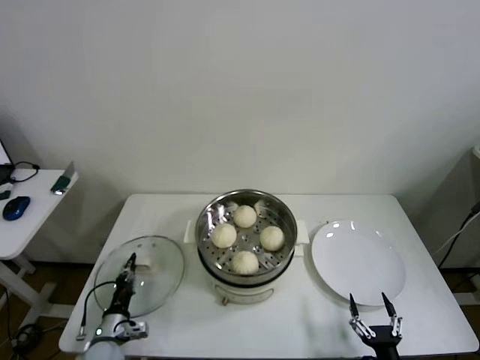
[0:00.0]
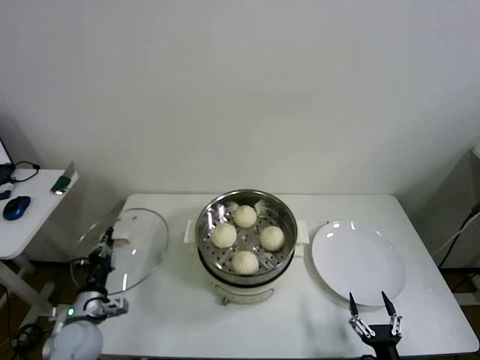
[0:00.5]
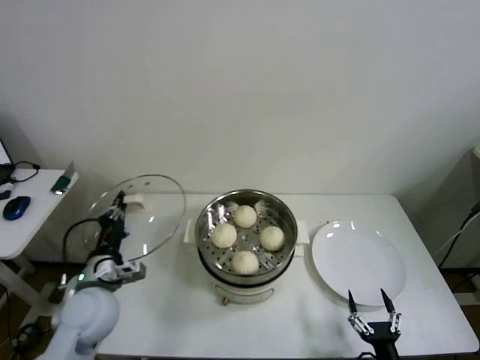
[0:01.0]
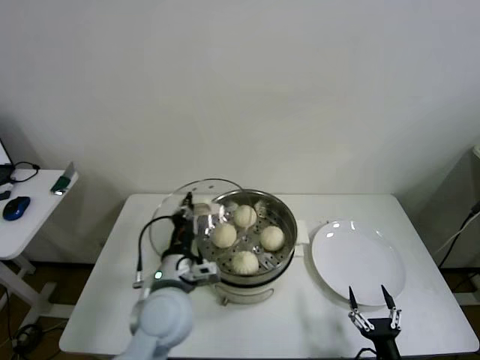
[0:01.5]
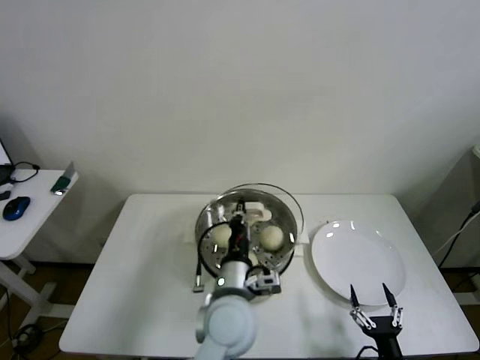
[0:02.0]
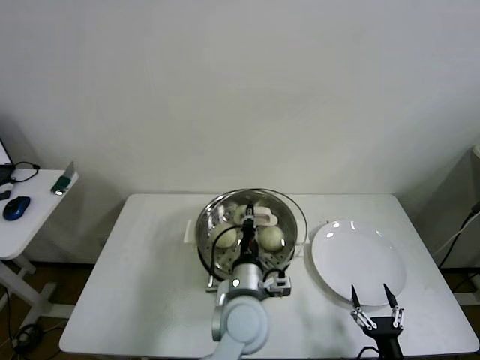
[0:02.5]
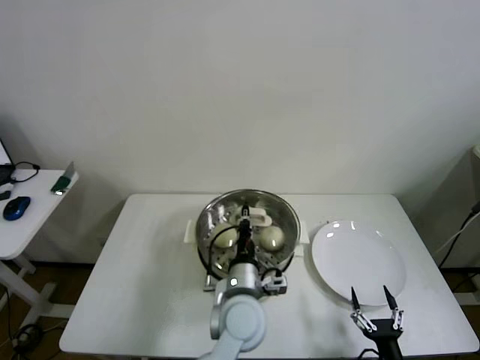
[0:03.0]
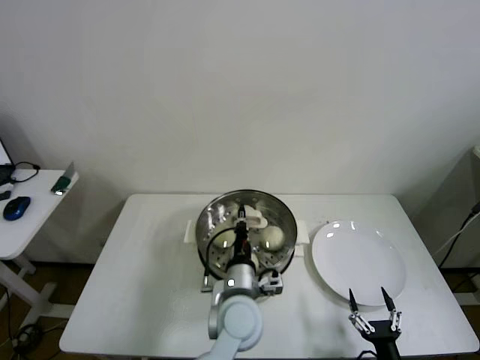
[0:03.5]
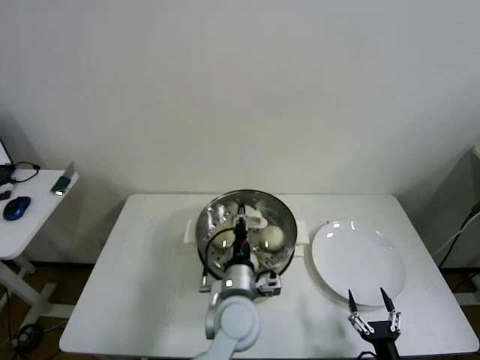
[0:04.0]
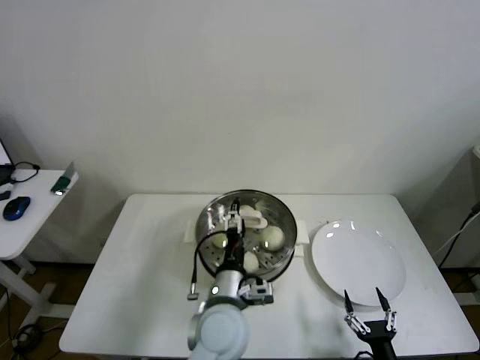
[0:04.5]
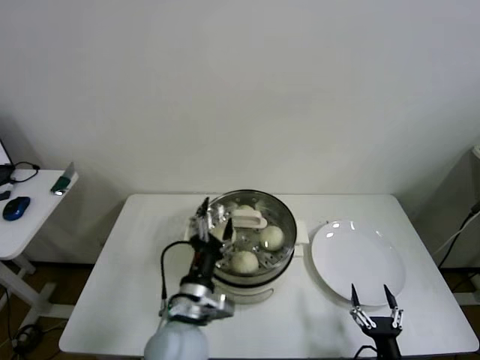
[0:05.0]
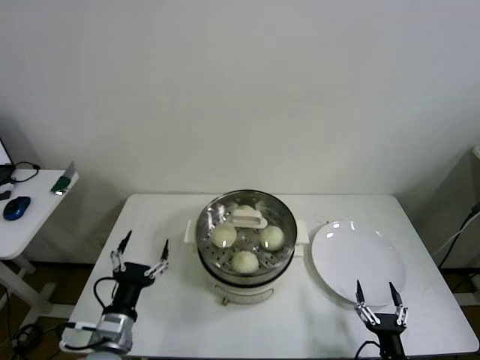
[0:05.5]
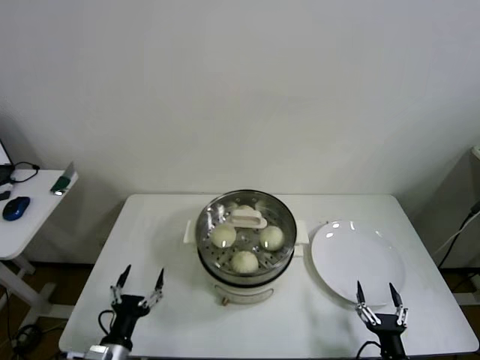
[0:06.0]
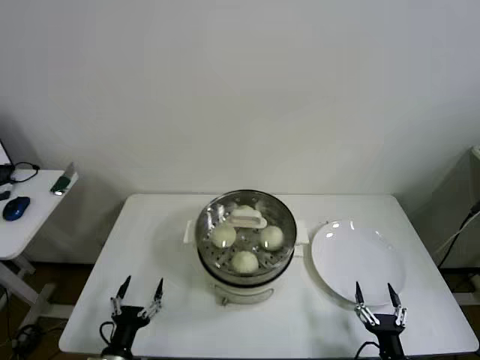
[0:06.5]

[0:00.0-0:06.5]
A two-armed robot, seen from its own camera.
Step, 0:00.0 to 0:04.0: Place the pot lid on the steamer with left gripper.
0:00.0 to 0:02.0: The left gripper travels to the right and upward by some 40 cm.
0:02.0 to 0:04.5: The left gripper opens.
0:04.5 to 0:06.5: The left gripper shifts some 30 cm to the left, downward and backward.

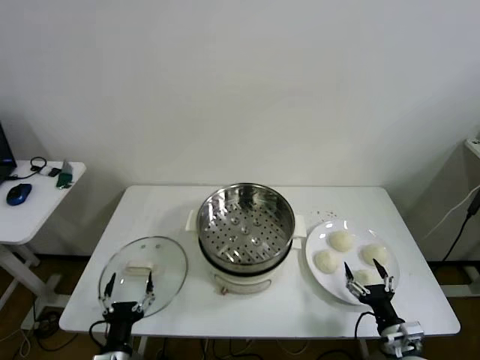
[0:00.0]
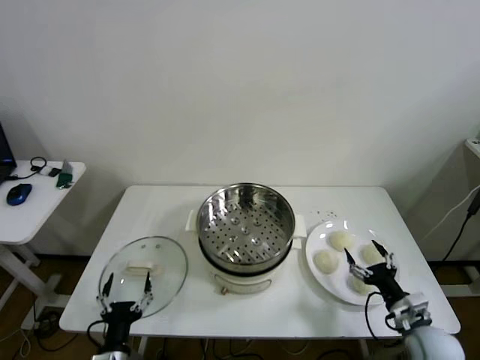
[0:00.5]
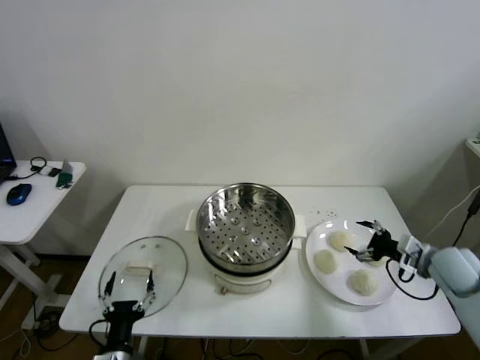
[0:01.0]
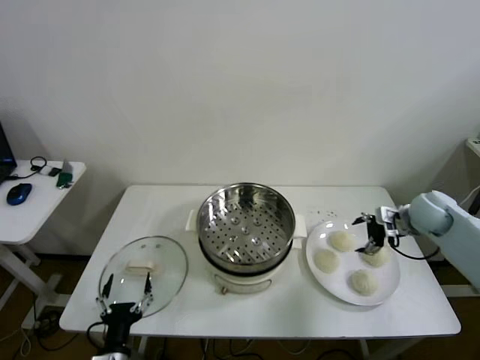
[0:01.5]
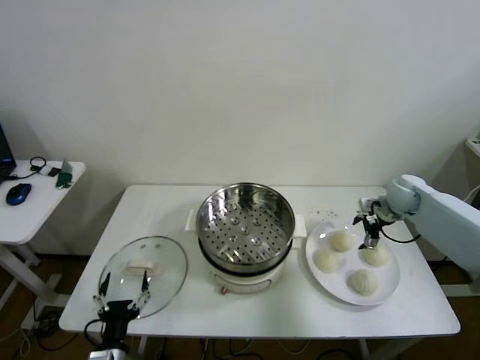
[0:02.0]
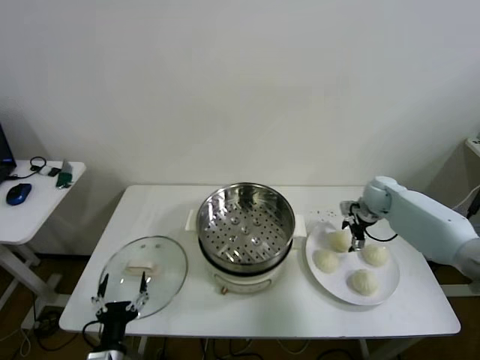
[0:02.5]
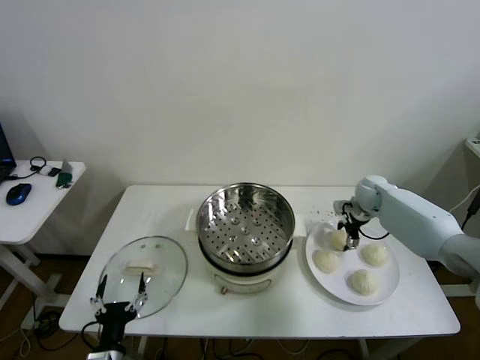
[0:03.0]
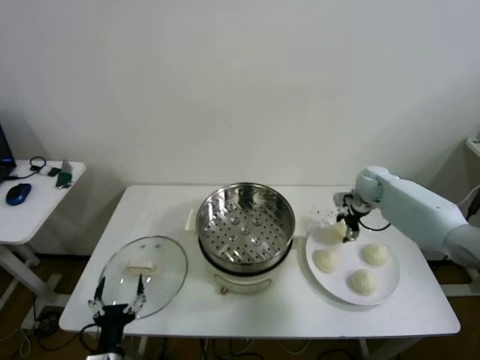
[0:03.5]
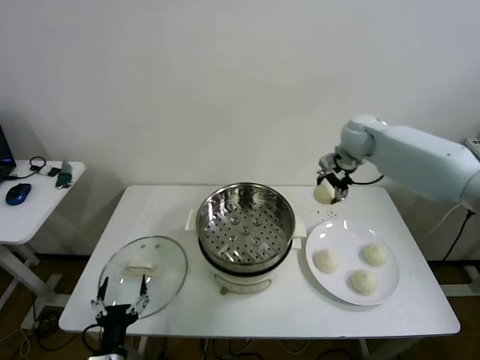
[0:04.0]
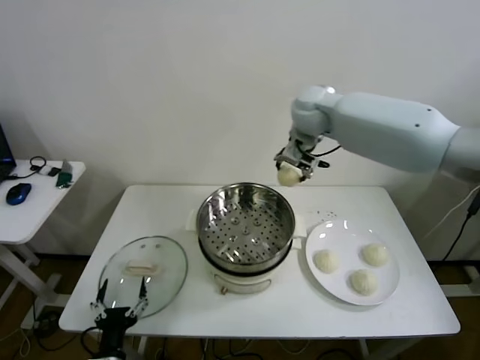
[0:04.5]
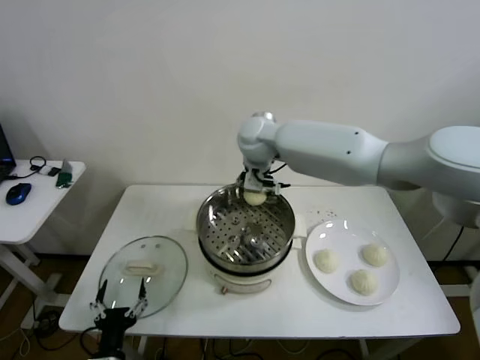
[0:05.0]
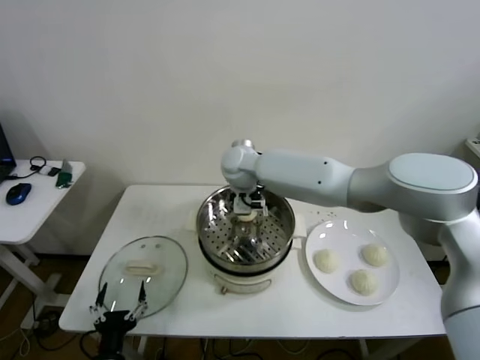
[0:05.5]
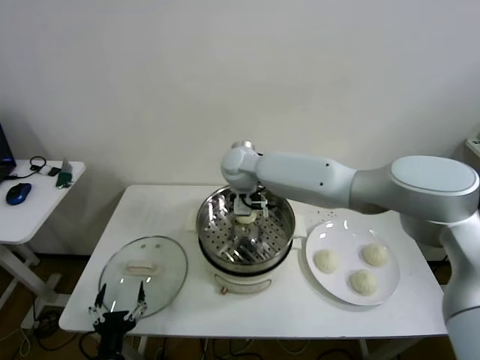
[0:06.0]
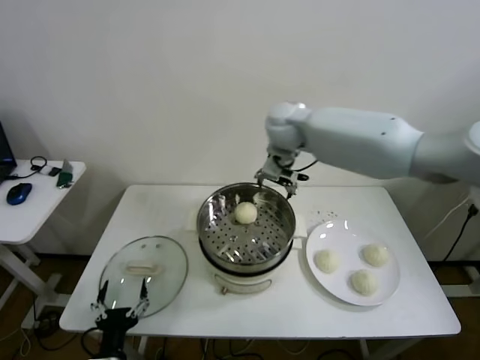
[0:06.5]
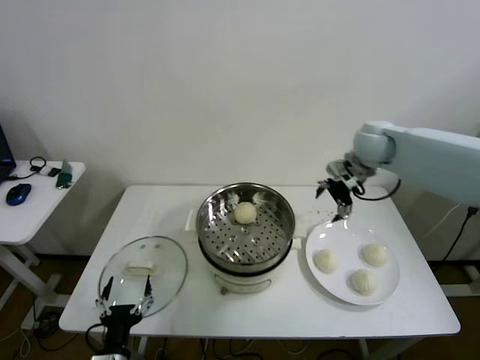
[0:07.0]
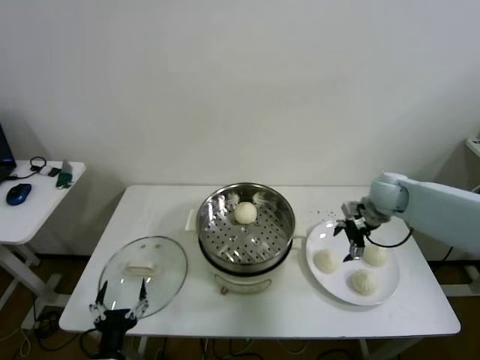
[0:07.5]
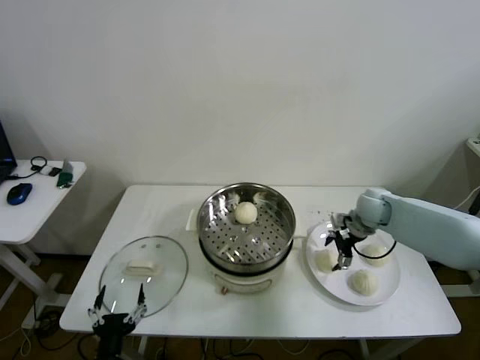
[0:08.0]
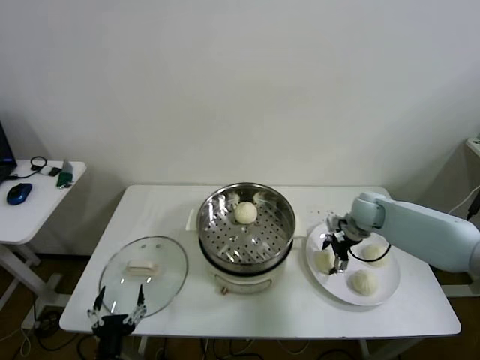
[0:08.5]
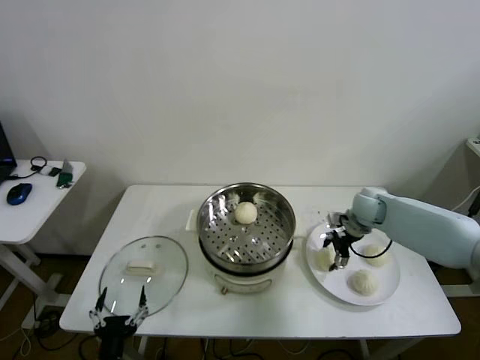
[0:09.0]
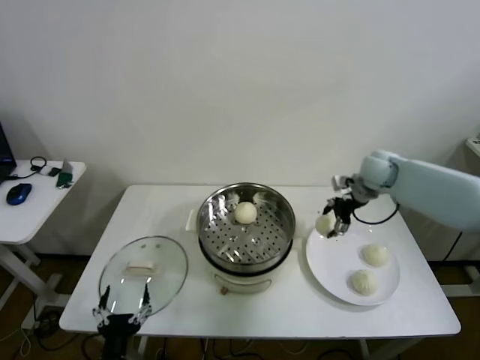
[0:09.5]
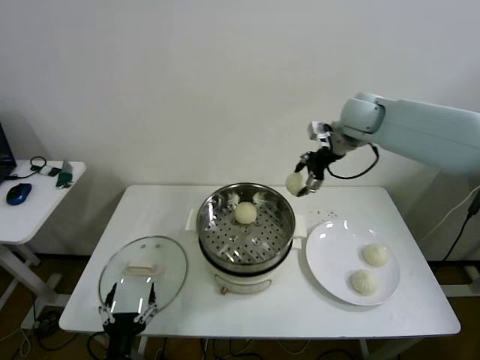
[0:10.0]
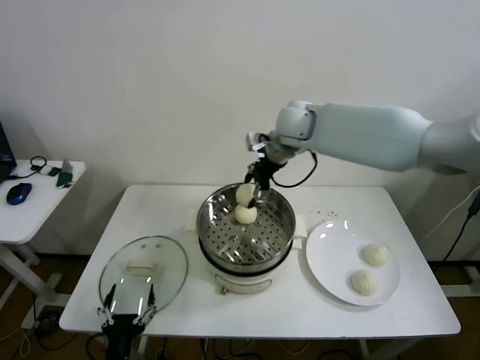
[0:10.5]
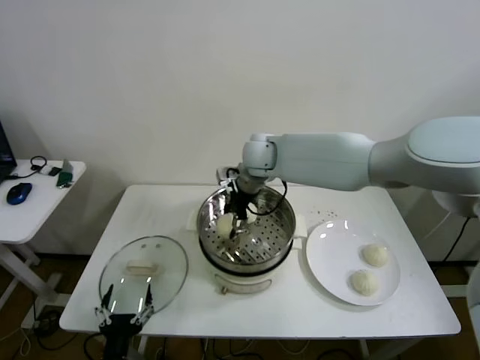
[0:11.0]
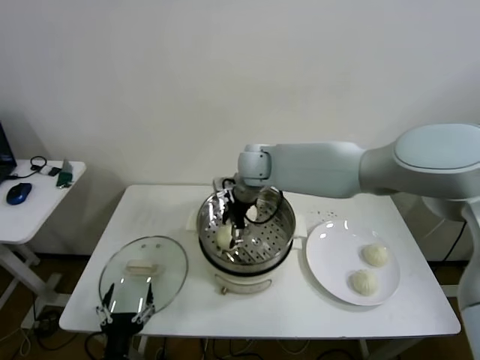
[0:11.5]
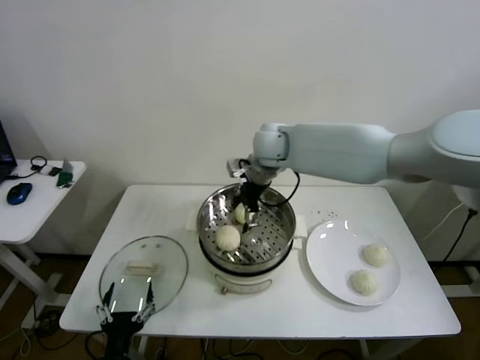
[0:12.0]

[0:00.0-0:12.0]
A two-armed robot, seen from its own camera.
Step, 0:00.0 to 0:02.5: Grasp the baozi in the plate with right gripper.
Step, 0:03.5 to 0:05.5: Place the baozi on the steamer with right gripper.
Step, 0:06.0 to 0:08.5: Grasp the baozi in the plate with right gripper.
Step, 0:09.0 to 0:11.0: Place the baozi on the steamer with right gripper.
0:02.0 to 0:04.0: The right gripper goes some 25 cm upward and to the left.
0:04.0 to 0:06.0: The right gripper travels to the left by about 25 cm.
0:06.0 to 0:08.0: The right gripper heads to the right and downward, covering some 35 cm.
0:08.0 to 0:10.0: The right gripper moves upward and to the left, roughly 25 cm.
0:10.0 to 0:12.0: The right gripper is displaced to the left by some 15 cm.

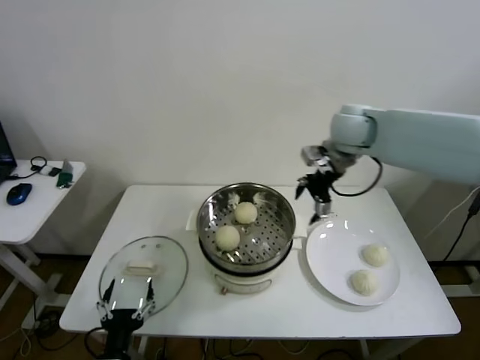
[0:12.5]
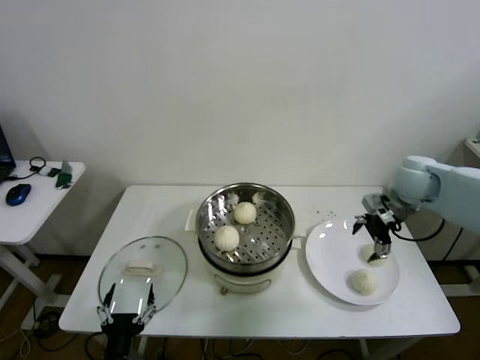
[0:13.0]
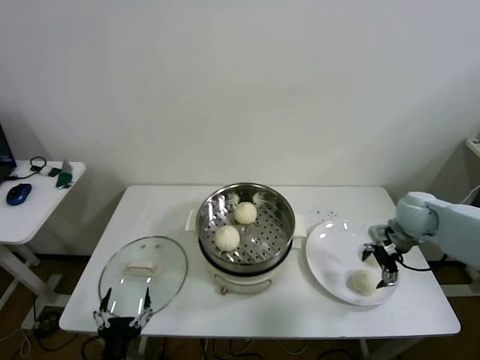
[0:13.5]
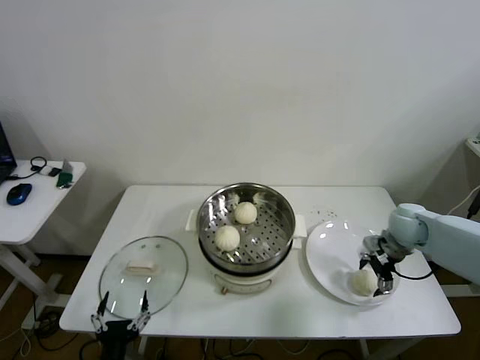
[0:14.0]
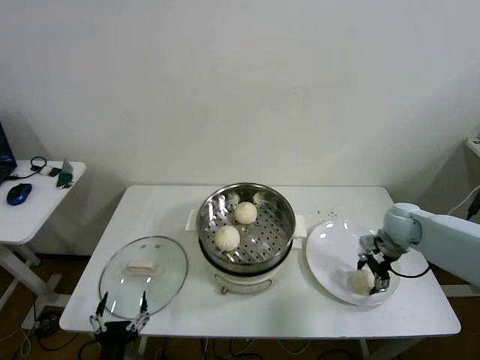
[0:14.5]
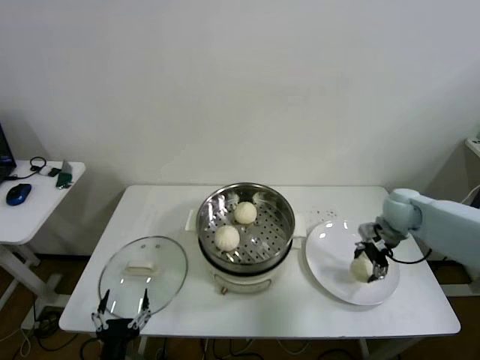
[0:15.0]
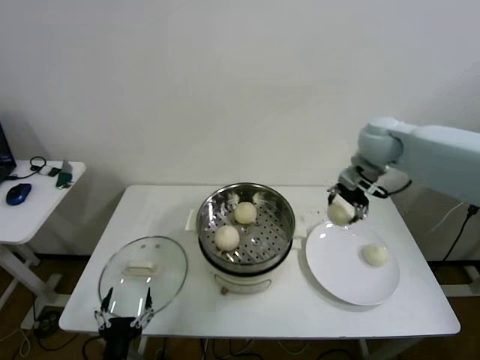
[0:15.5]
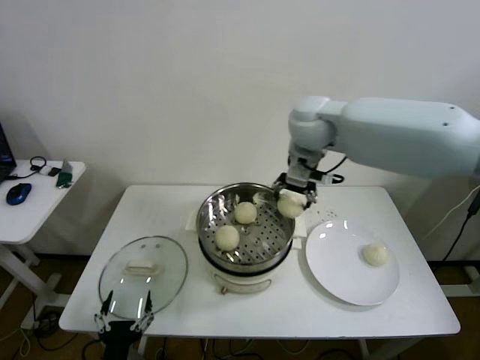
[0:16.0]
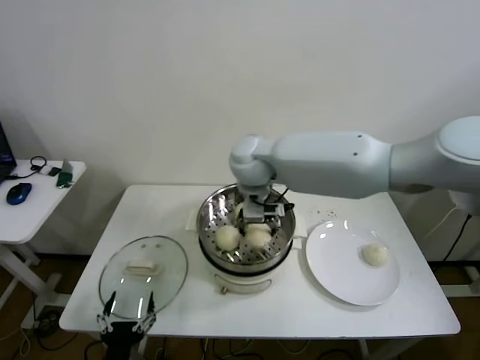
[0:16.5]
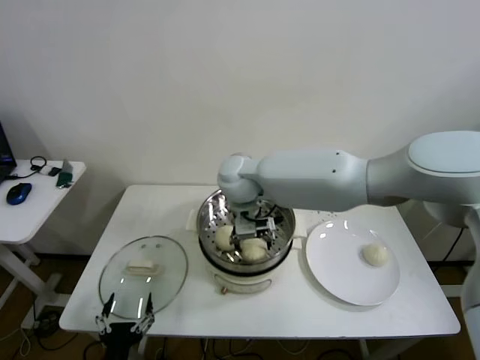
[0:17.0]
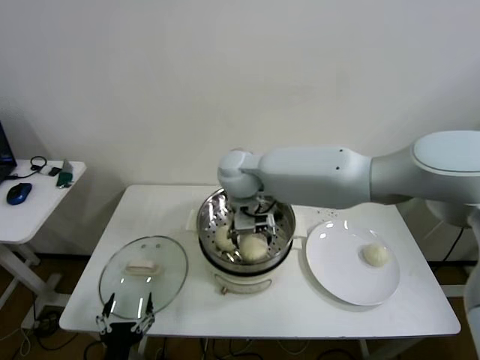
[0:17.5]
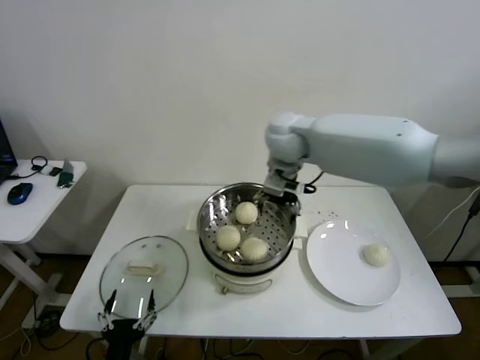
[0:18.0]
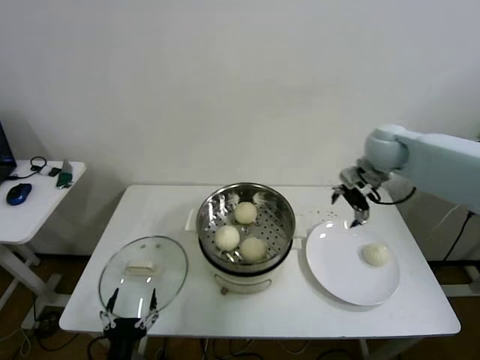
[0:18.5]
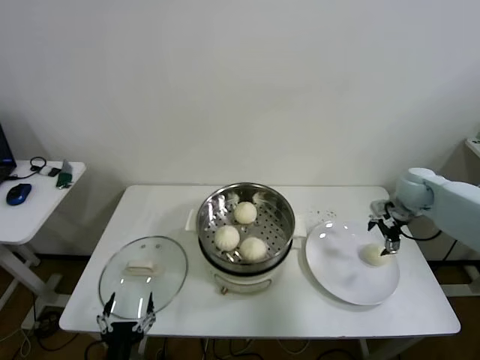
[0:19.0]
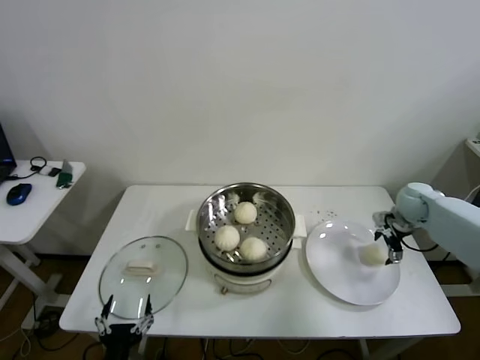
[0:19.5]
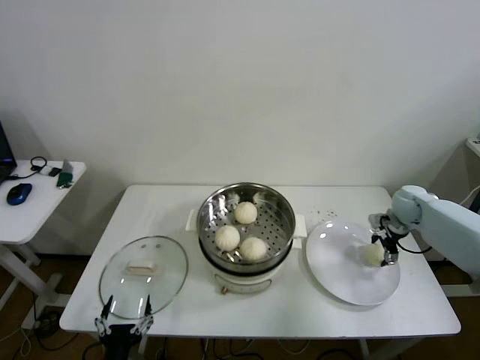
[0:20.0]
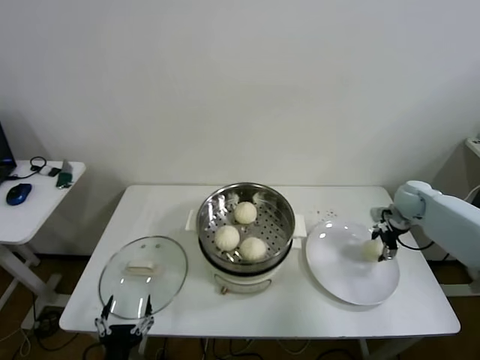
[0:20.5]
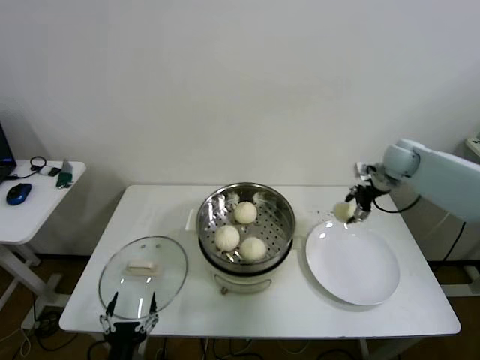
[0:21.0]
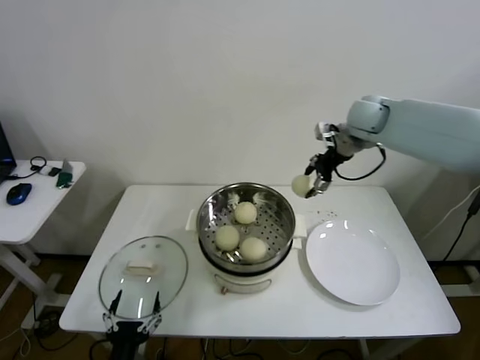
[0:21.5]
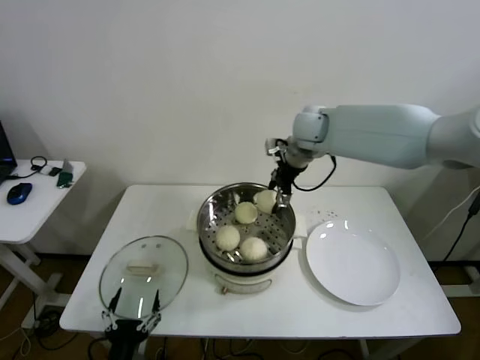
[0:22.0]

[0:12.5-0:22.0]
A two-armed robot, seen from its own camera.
Step, 0:12.5 to 0:14.5: Grasp the baozi in the plate with right gripper.
Step, 0:15.0 to 0:17.0: Place the baozi on the steamer with right gripper.
Step, 0:17.5 to 0:20.0: Grasp the baozi in the plate with right gripper.
0:12.5 to 0:14.5: The right gripper travels downward and to the right by roughly 25 cm.
0:14.5 to 0:16.5: The right gripper travels to the left and upward by roughly 40 cm.
0:16.5 to 0:18.0: The right gripper shifts roughly 10 cm to the right.
0:18.0 to 0:20.0: The right gripper goes about 40 cm to the right and downward.
0:20.0 to 0:22.0: The right gripper heads to the left and upward, covering some 35 cm.
